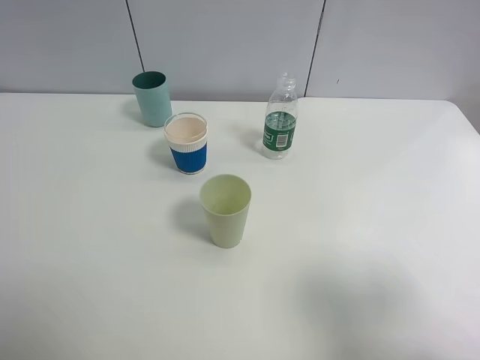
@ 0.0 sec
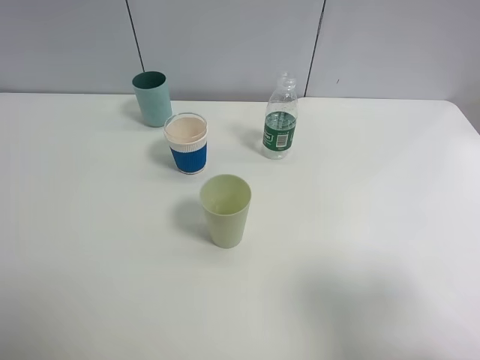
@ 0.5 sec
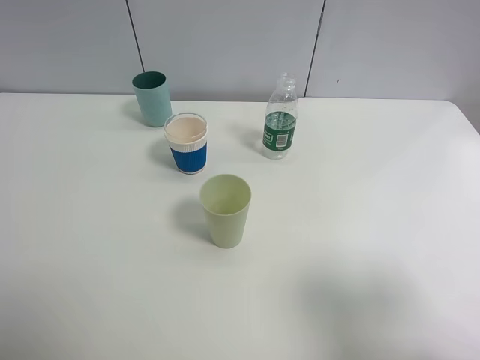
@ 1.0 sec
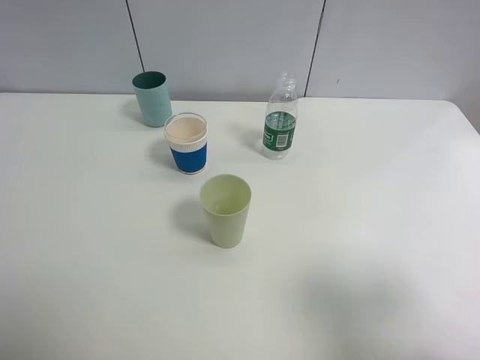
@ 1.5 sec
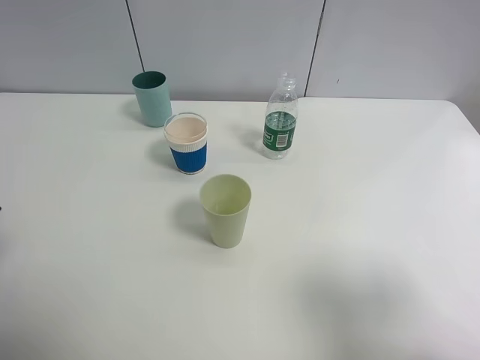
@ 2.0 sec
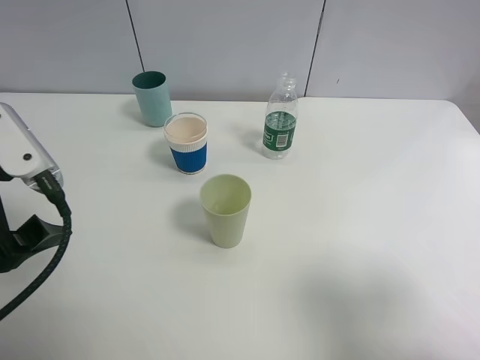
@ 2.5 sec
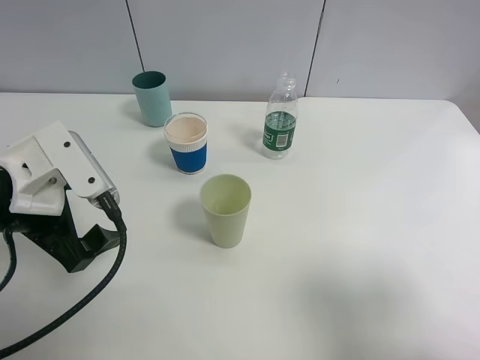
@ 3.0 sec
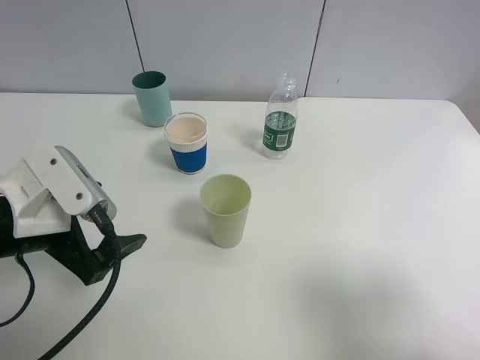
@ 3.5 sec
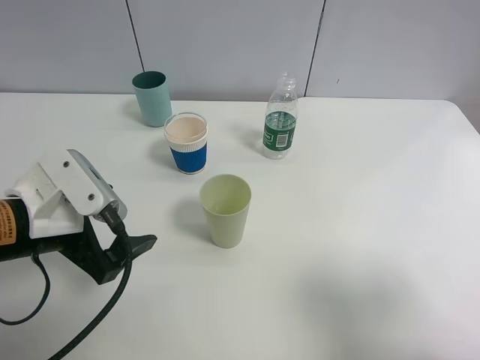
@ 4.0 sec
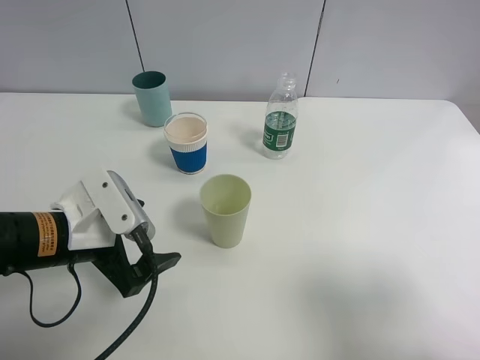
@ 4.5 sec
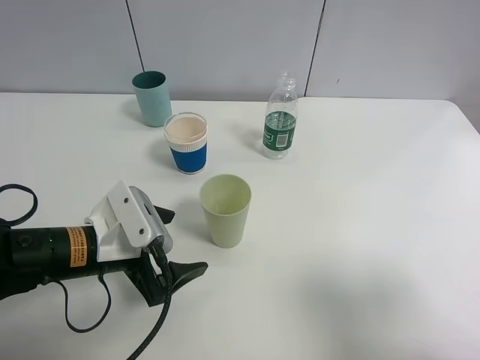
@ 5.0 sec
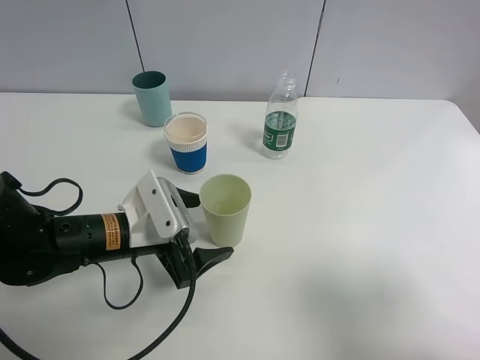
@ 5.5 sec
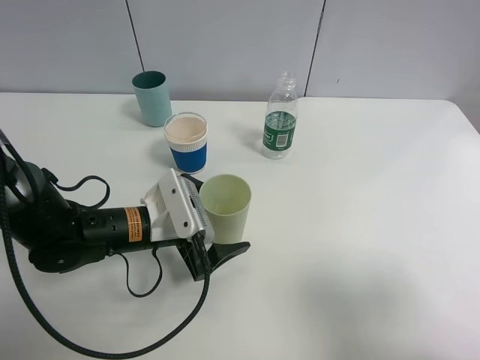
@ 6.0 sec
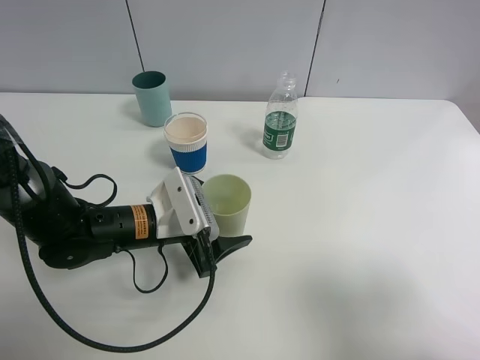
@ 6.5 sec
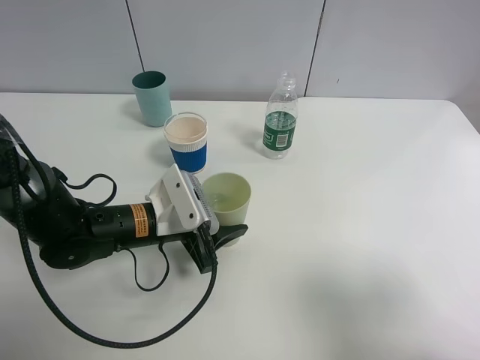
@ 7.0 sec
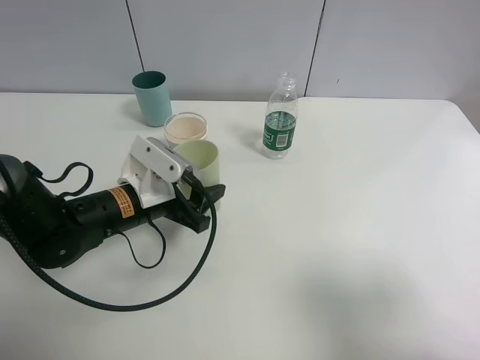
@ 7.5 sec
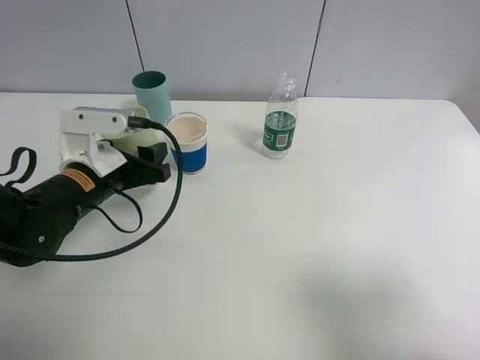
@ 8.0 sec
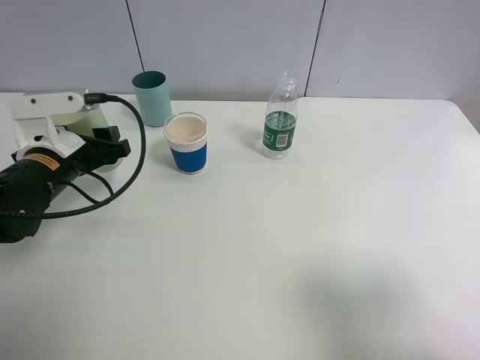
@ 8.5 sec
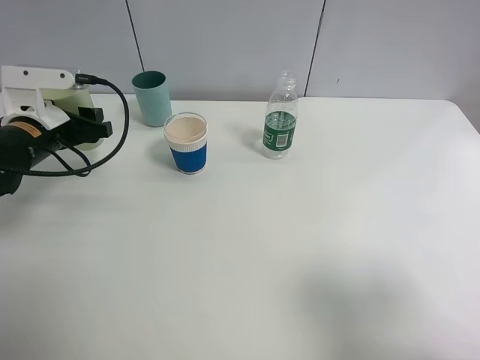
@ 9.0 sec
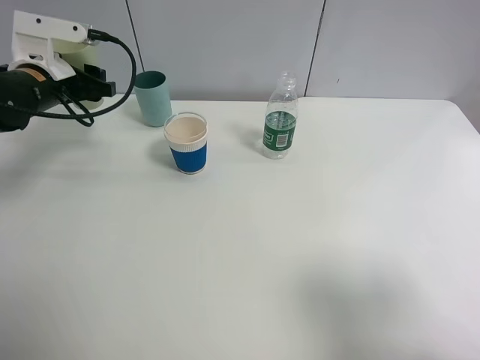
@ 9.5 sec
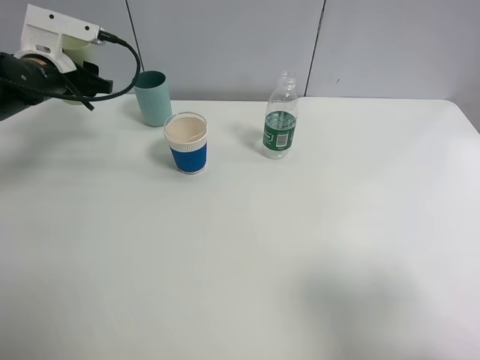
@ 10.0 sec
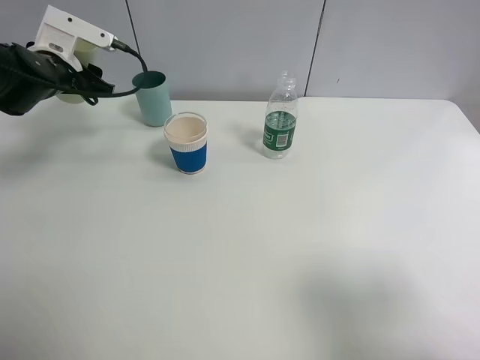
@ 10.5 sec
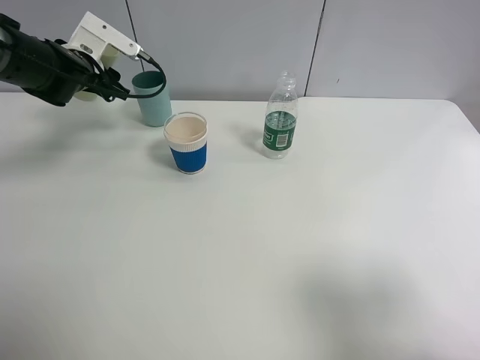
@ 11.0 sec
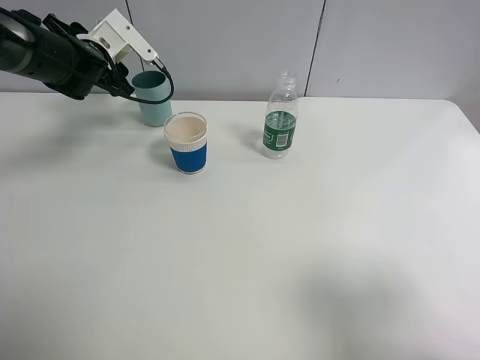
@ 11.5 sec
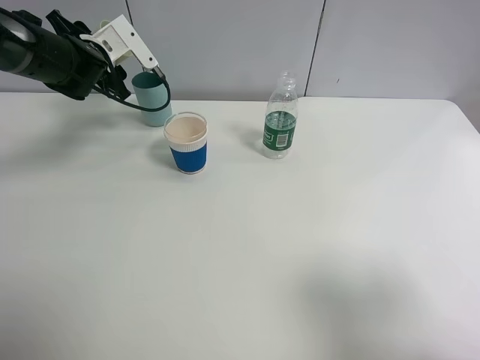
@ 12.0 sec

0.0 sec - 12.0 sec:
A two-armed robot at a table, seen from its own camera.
Task of the whole recording: use a clamp to hold the bottle of the drink, pour the beverage into a random cup, then clamp the cup containing the drink and pour the drink into another random cup.
Step, 0.0 sec - 7.0 sec: Pick up the green plastic cup bottle with left gripper.
2.0 sec - 4.0 sec: The left gripper goes about 15 cm downward and to the right.
4.0 sec - 6.0 sec: The left gripper is displaced downward, to the right and forward by some 15 cm.
6.0 sec - 8.0 sec: The left gripper shifts about 10 cm to the left and upward, and closes its fingers.
8.0 sec - 10.0 sec: The left gripper is displaced forward, to the left and upward by approximately 20 cm.
10.0 sec - 12.0 sec: The left gripper travels forward by some 5 cm.

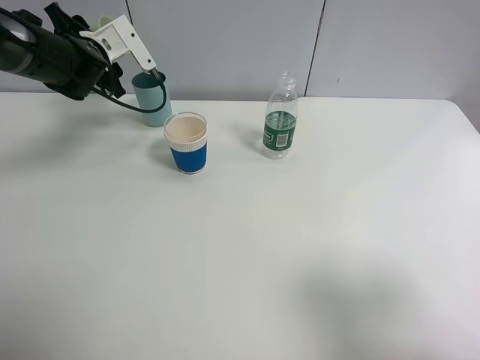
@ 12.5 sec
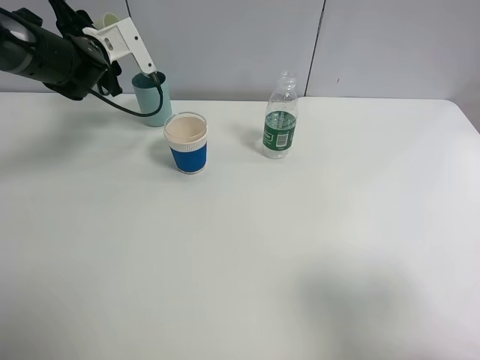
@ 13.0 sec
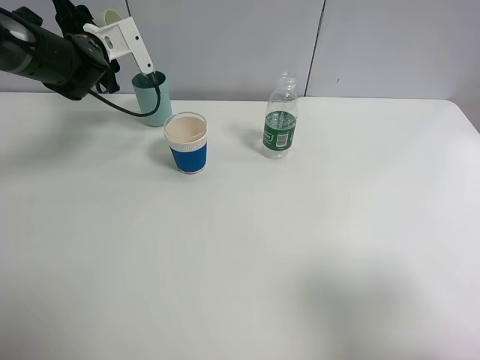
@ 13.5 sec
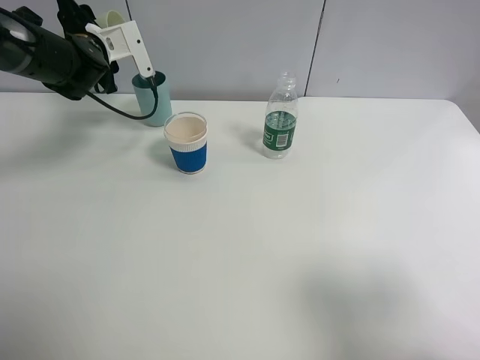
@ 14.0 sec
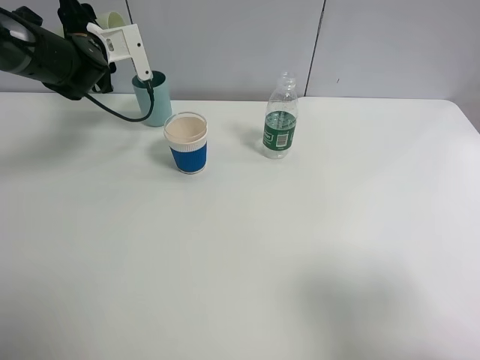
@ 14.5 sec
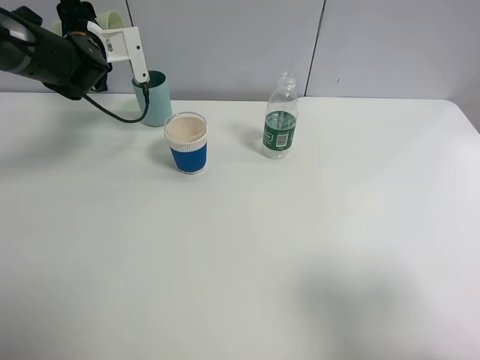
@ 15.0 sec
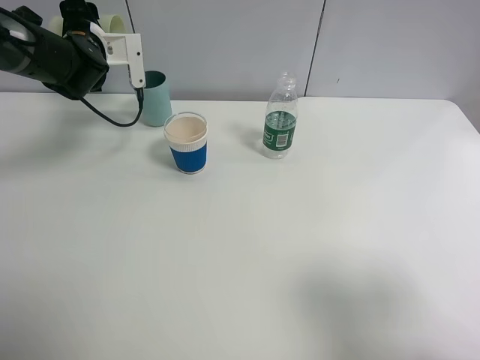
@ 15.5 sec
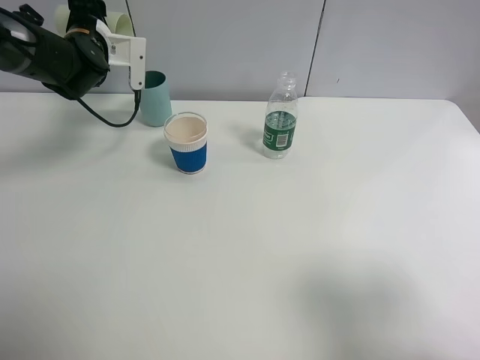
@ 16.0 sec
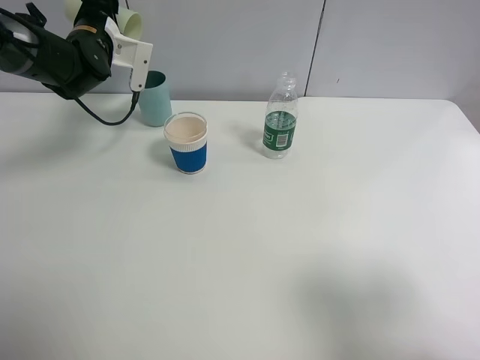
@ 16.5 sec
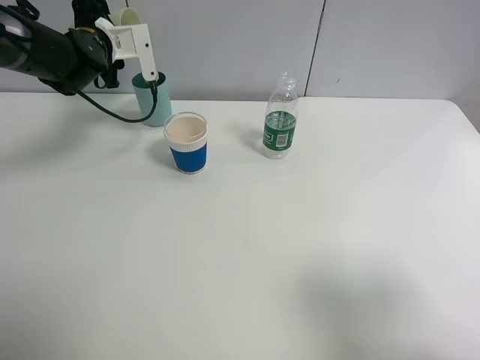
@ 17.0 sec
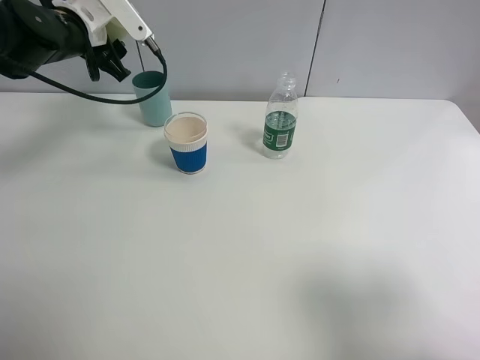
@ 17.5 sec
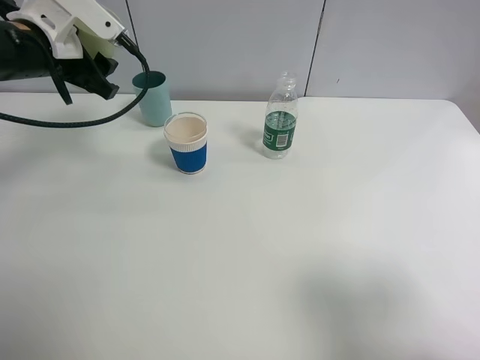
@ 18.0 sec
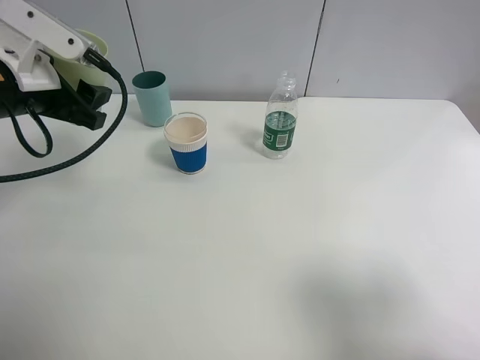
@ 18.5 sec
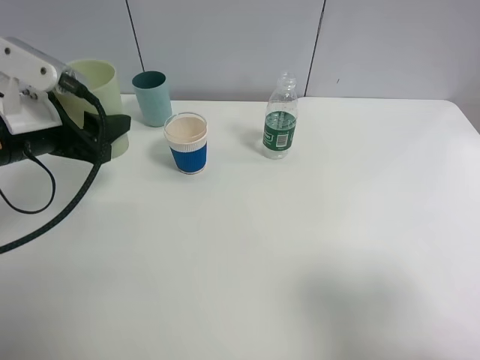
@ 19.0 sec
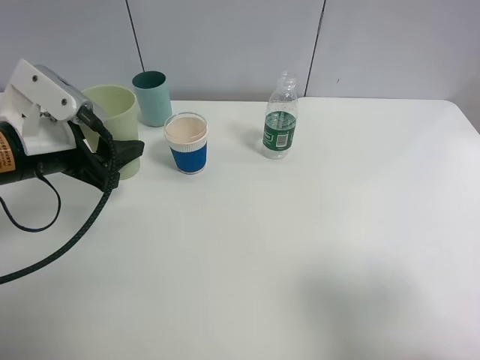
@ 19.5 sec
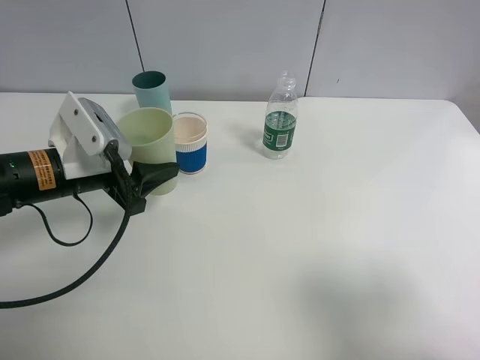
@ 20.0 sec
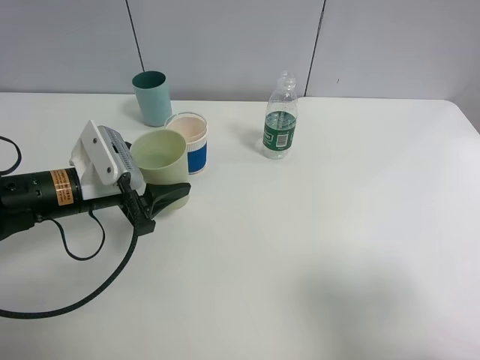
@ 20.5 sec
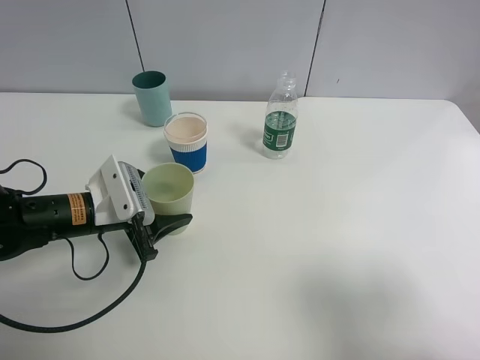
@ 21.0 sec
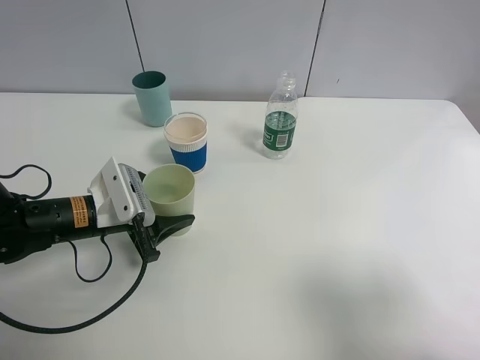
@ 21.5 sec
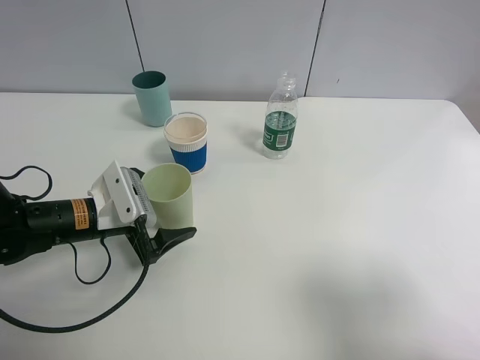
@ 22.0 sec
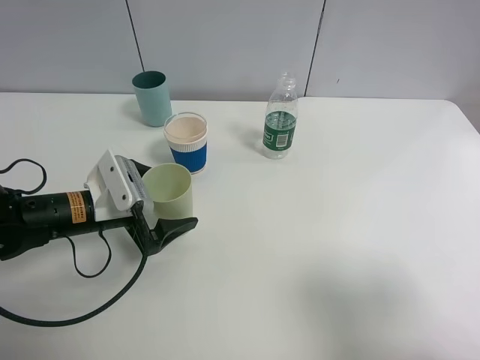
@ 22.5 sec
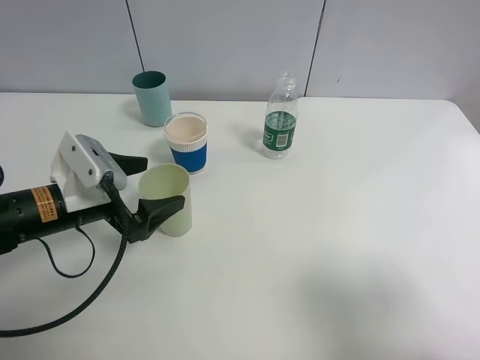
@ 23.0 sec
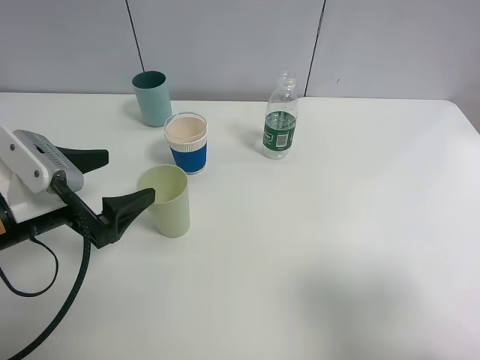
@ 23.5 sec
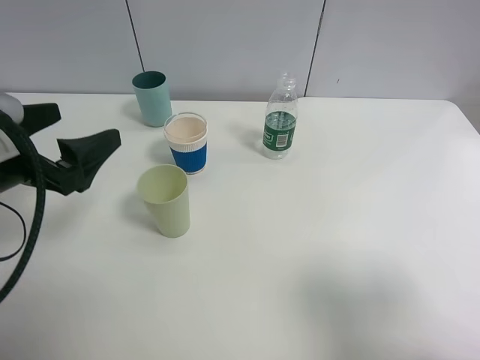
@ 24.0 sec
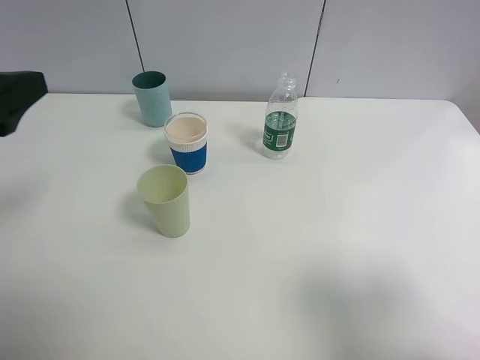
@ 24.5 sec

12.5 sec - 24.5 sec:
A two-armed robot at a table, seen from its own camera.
Task of the whole recording: use a clamp to hold the bottle of the drink, pour the beverage into a random cup, then clamp the cup containing the drink and pour the drink into another random cup.
Step, 12.5 sec - 17.0 sec: Pour water into the blue plastic cup with left gripper.
Step, 17.5 sec - 22.0 sec: Place the green plastic cup on the table with left gripper.
12.5 sec - 14.5 sec: The grippers stay close to where they were, moving slightly.
16.5 sec - 18.5 sec: The left gripper goes some 20 cm backward.
18.5 sec - 20.5 sec: The left gripper heads downward and to the right, covering some 15 cm.
20.5 sec - 22.5 sec: The left gripper opens.
22.5 sec - 24.5 sec: The left gripper shifts about 20 cm upward and backward.
